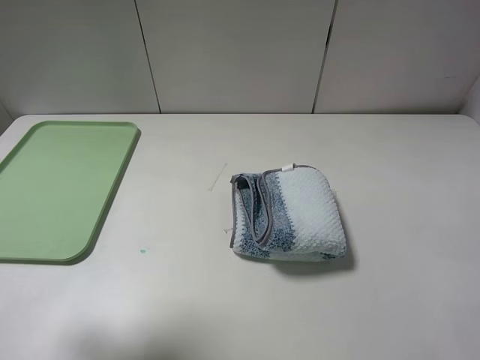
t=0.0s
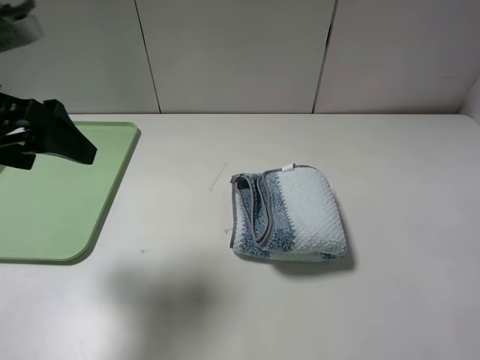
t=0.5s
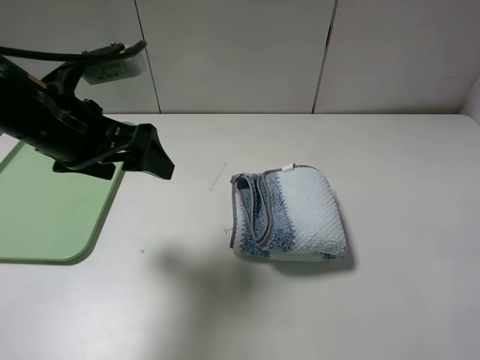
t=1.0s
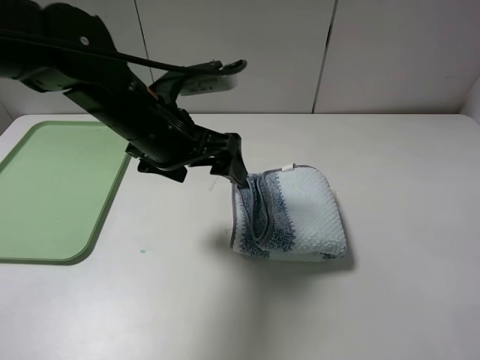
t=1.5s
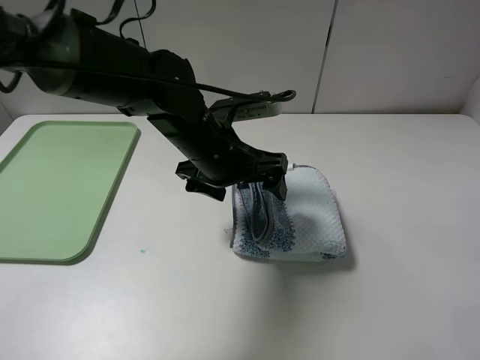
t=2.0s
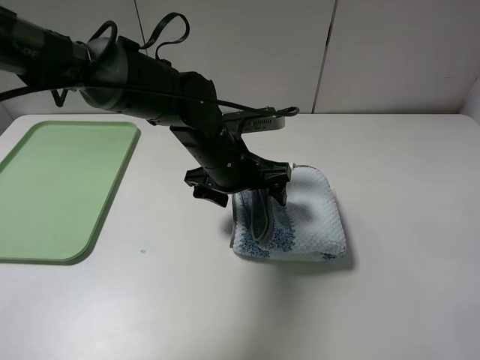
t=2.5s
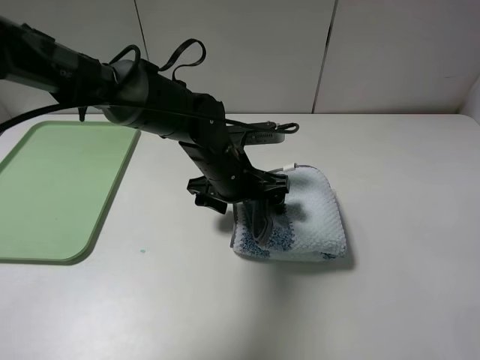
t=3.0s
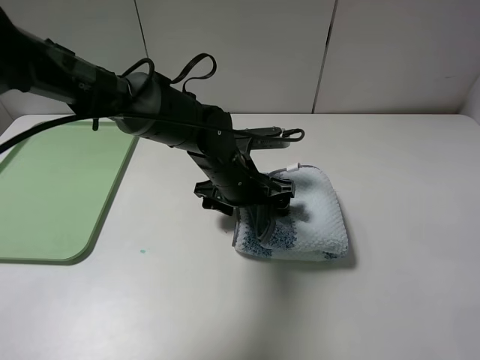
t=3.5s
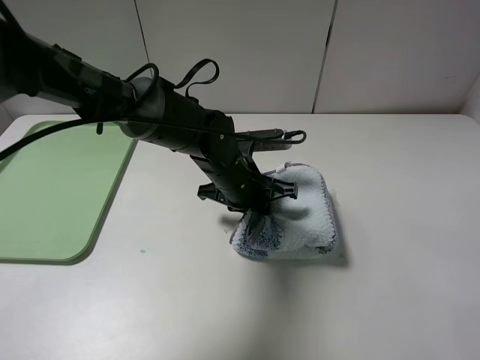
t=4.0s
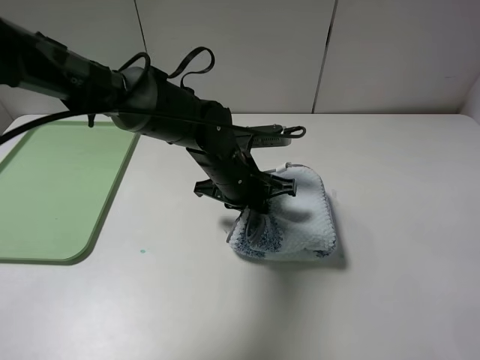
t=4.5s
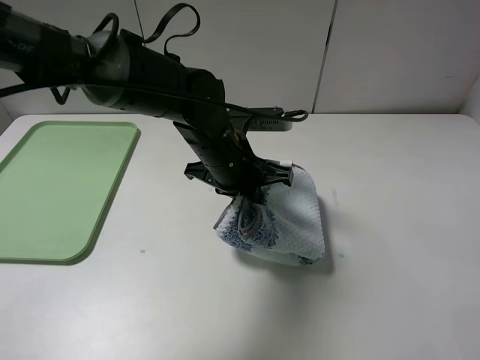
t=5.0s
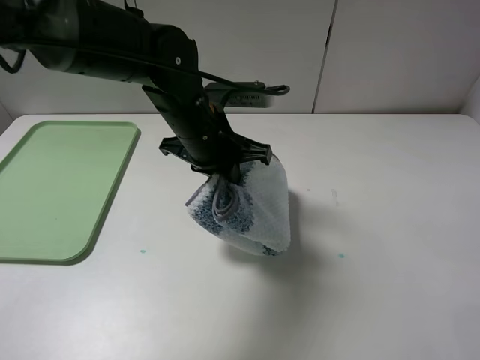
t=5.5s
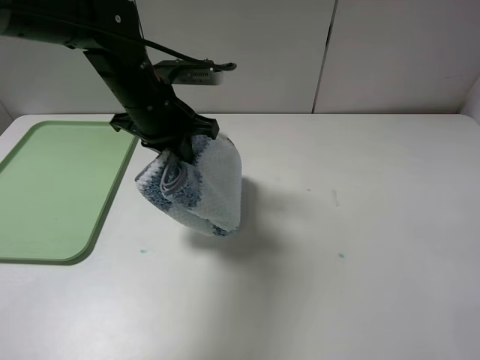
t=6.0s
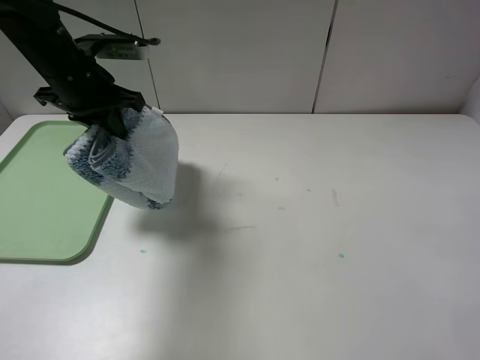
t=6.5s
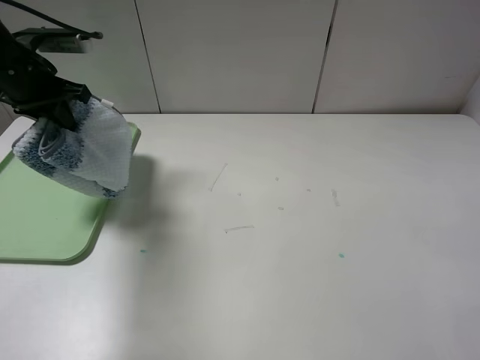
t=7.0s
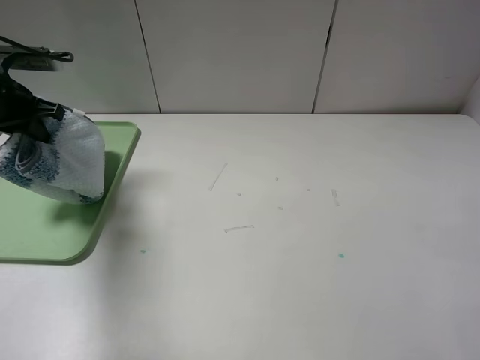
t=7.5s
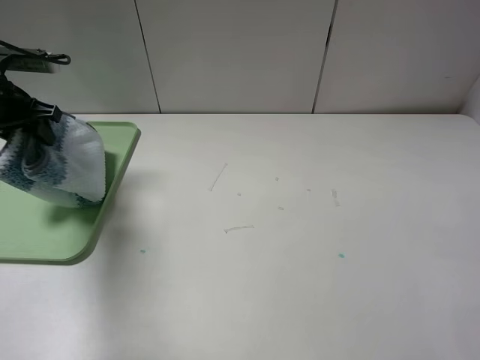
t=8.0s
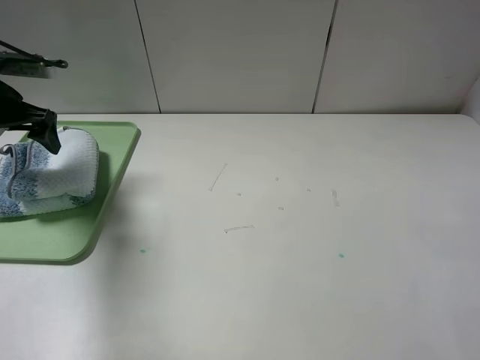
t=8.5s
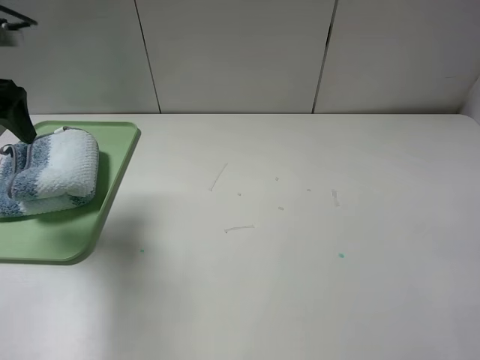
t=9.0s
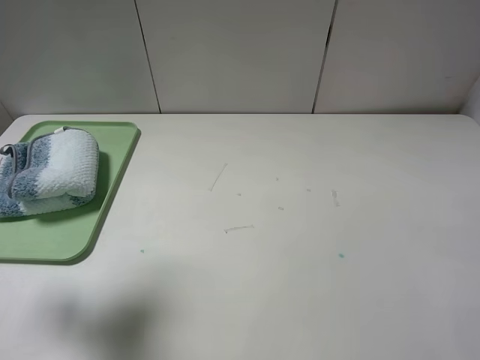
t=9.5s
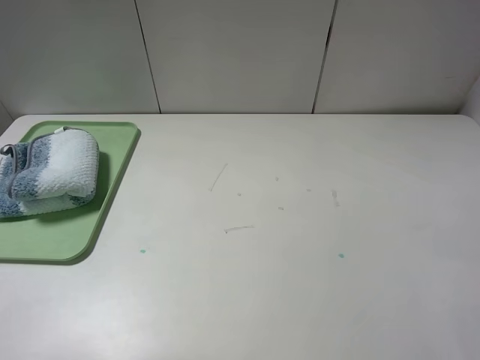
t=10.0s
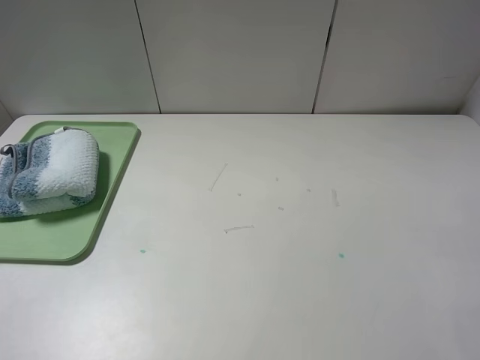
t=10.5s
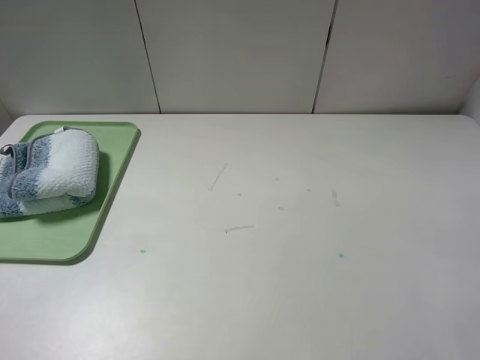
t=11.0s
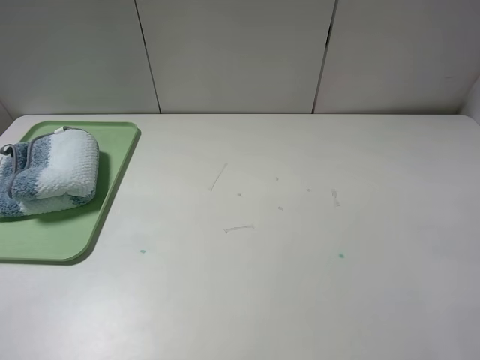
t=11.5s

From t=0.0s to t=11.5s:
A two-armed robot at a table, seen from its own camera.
Step, from t=0.0s to t=4.5s: Grasp the blue white towel with the left gripper.
From t=0.0s to t=2.0s: The left gripper travels to the right, downward and forward by some 35 cm.
From t=2.0s to t=4.0s: The left gripper shifts approximately 5 cm downward, and closes.
From t=4.0s to t=6.0s: The left gripper is displaced upward and to the left by some 15 cm.
From t=6.0s to t=7.5s: The left gripper moves to the left, about 25 cm.
From t=7.5s to t=9.5s: The left gripper shifts roughly 20 cm backward and upward, and opens up.
From t=9.5s to t=11.5s: The left gripper heads backward, covering approximately 20 cm.
